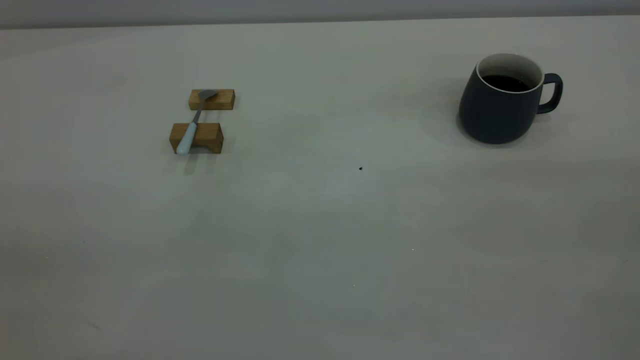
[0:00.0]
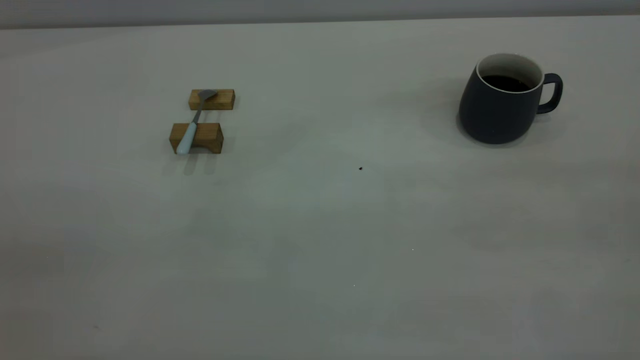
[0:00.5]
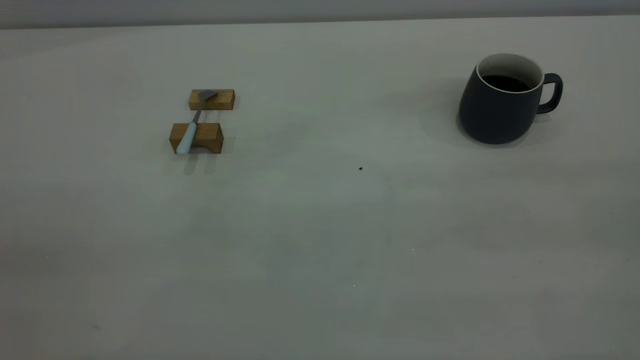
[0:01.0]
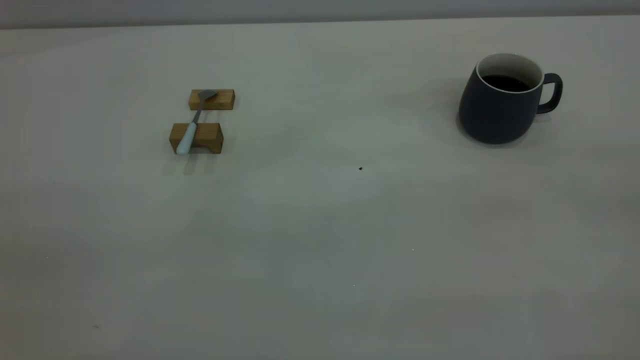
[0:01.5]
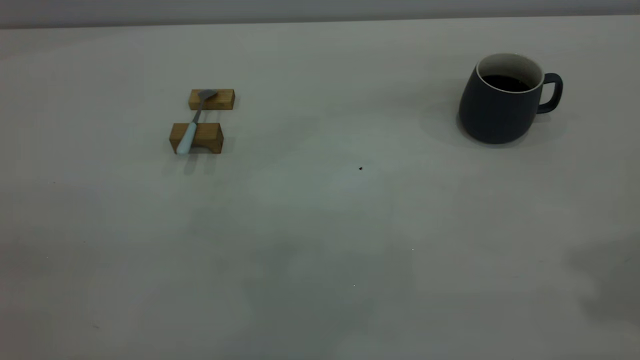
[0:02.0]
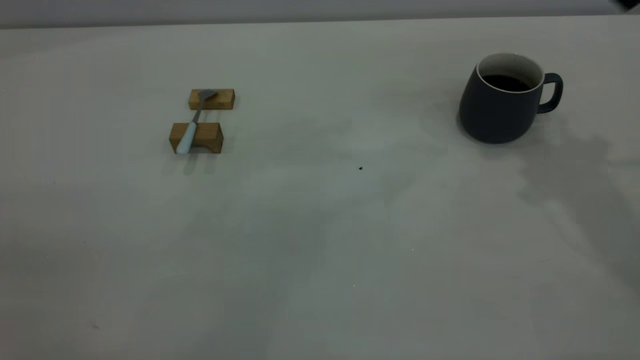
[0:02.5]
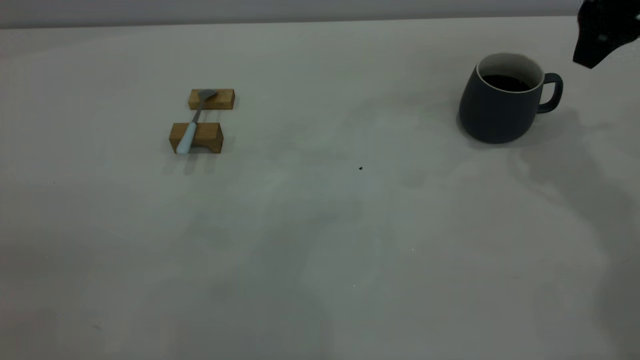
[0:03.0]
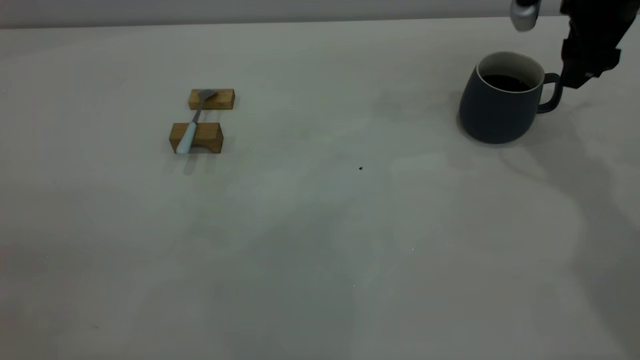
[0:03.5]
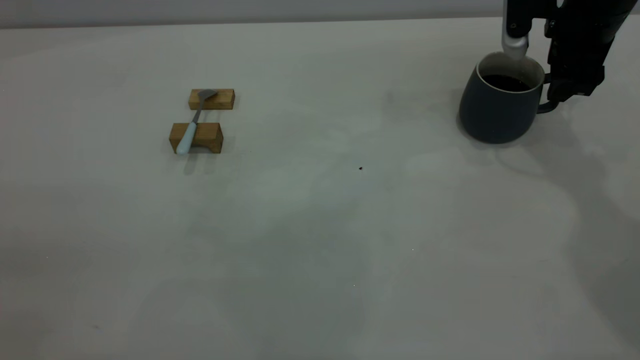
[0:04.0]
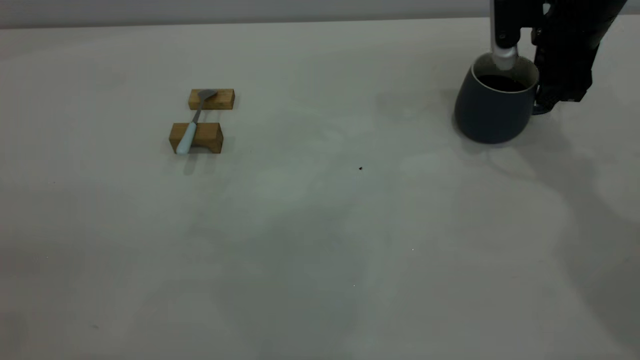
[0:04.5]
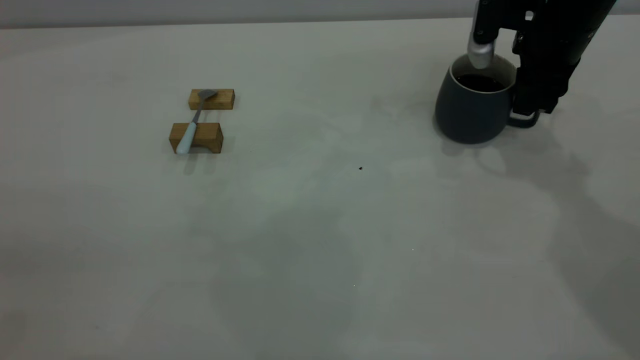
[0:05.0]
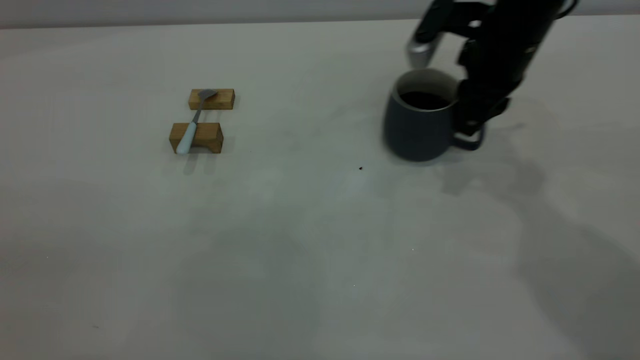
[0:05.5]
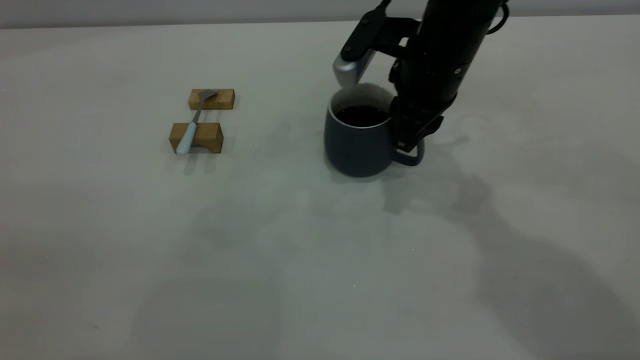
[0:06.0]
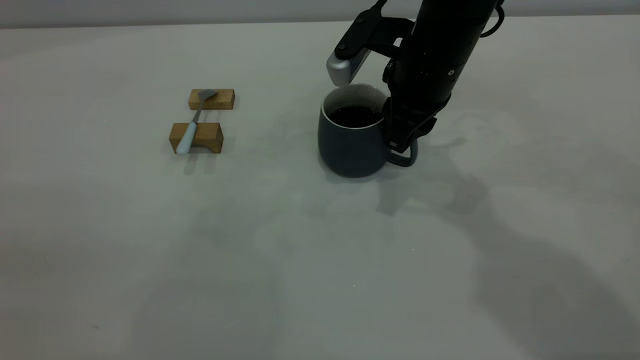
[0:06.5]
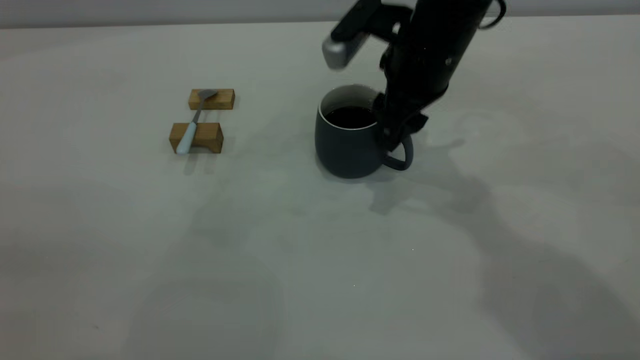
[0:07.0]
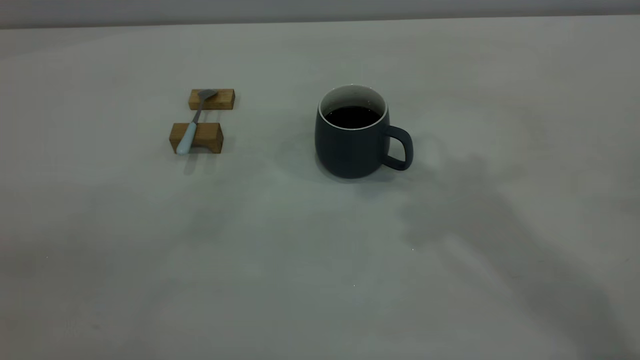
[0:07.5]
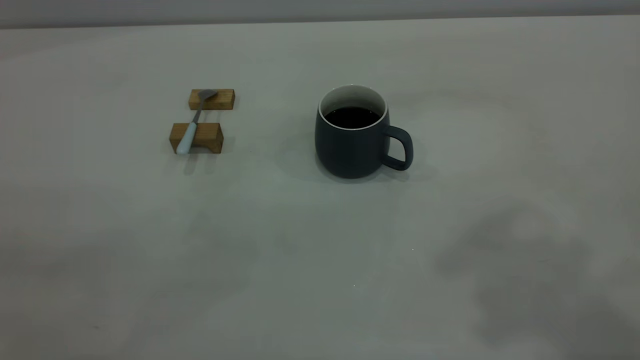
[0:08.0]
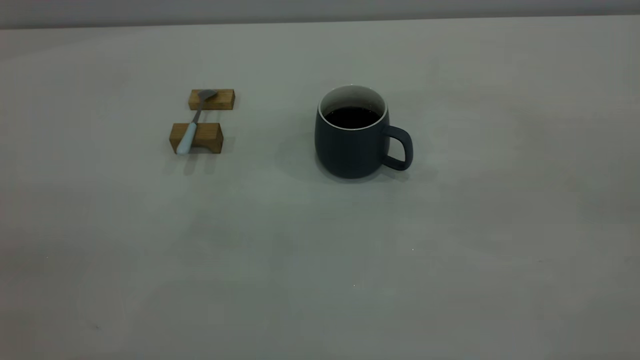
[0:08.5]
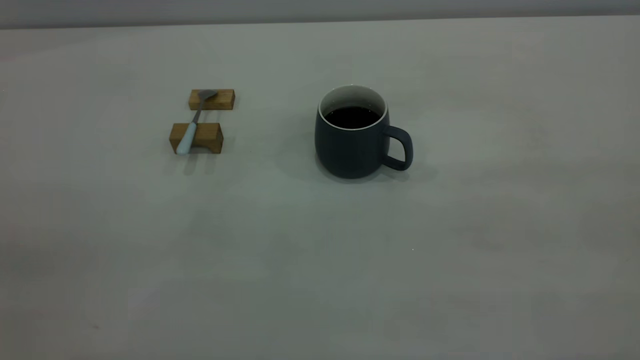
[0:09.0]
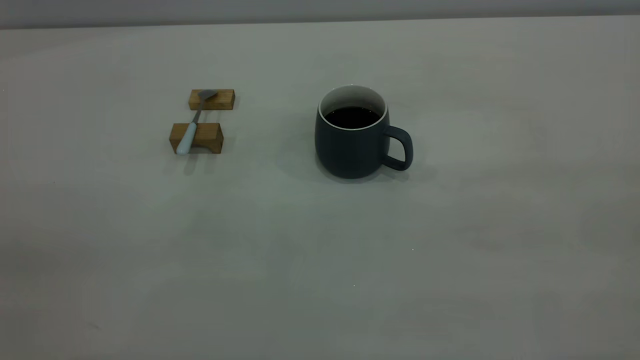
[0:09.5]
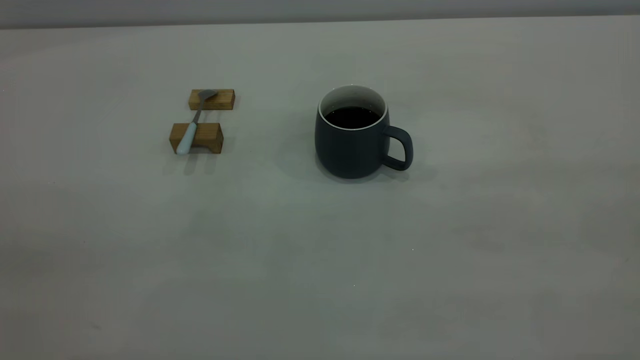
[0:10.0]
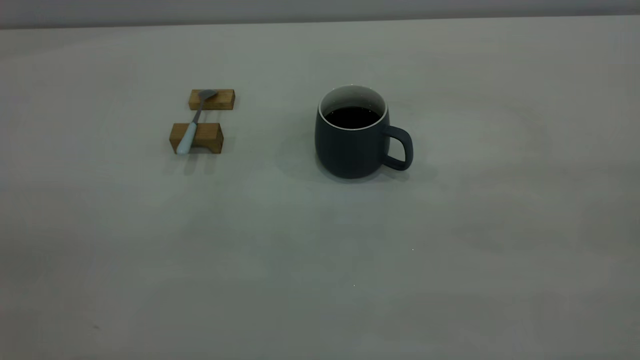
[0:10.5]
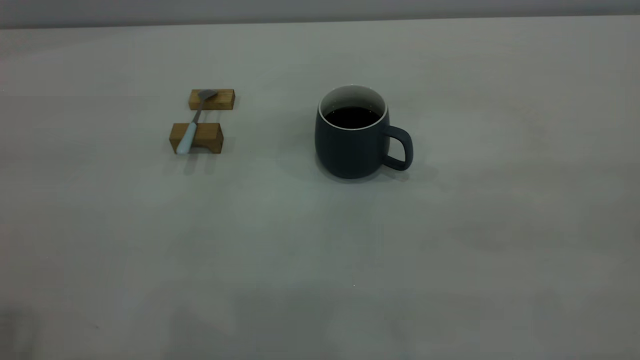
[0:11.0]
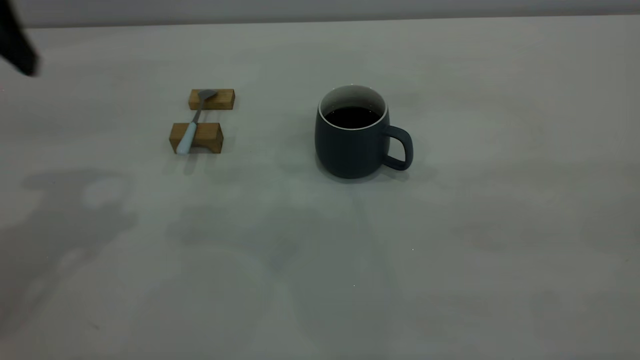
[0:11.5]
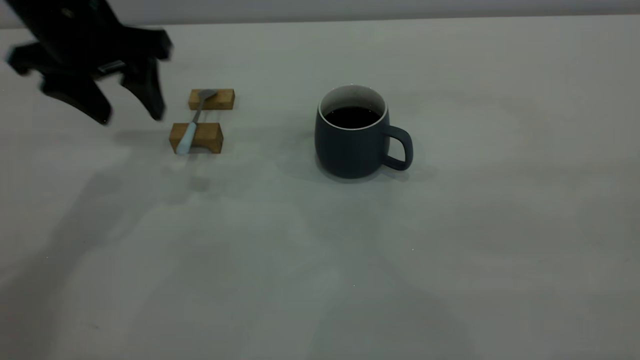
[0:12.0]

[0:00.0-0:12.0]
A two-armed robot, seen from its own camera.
Step, 0:00.0 to 0:07.0: Move the cup with coffee to the center of view.
0:02.0 to 0:04.0: The right gripper heads downward and forward, covering roughly 35 cm.
0:04.0 to 0:06.0: The right gripper heads to the left, covering approximately 15 cm, and closes its fingers.
0:06.0 to 0:08.0: The right gripper is displaced upward and backward by some 40 cm, and opens its fingers.
0:10.0 to 0:12.0: The left gripper moves forward and downward, approximately 40 cm, and opens.

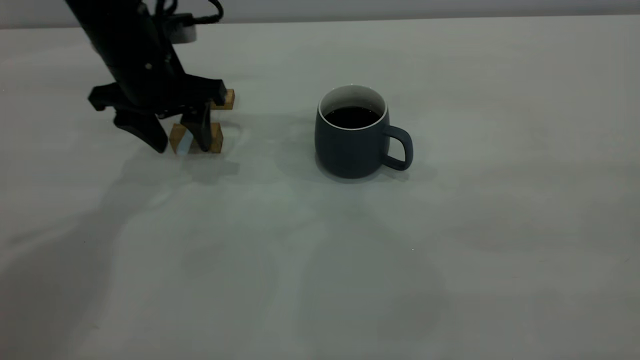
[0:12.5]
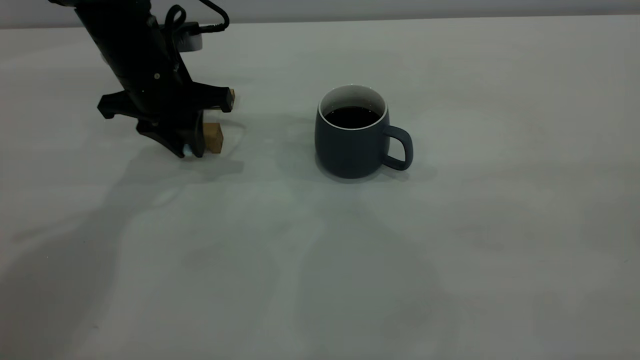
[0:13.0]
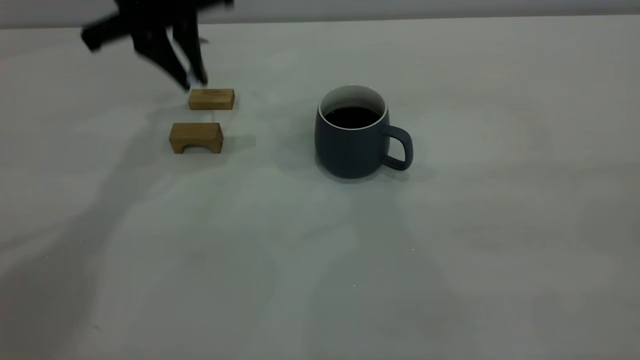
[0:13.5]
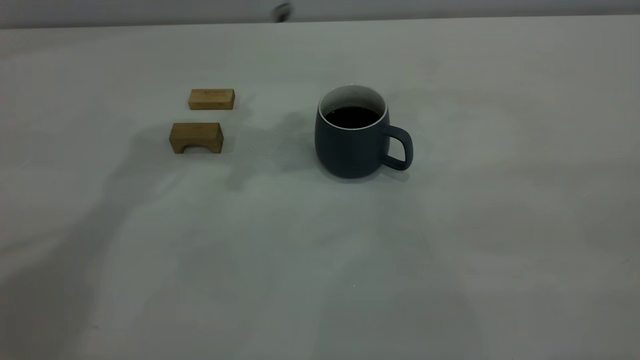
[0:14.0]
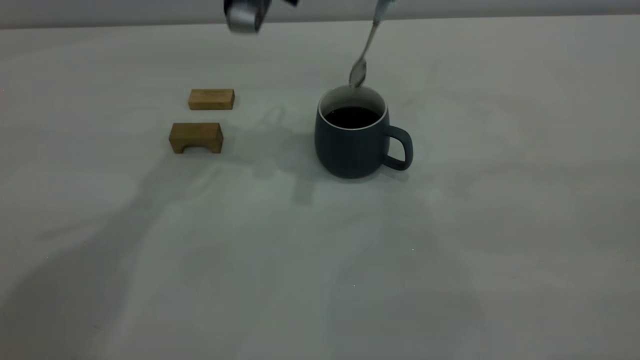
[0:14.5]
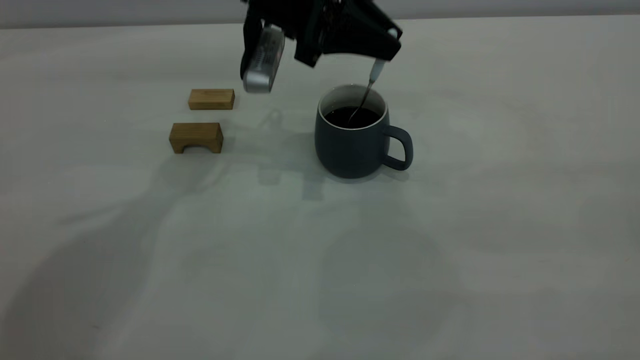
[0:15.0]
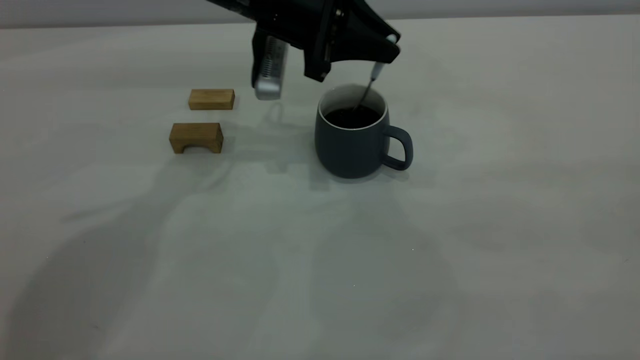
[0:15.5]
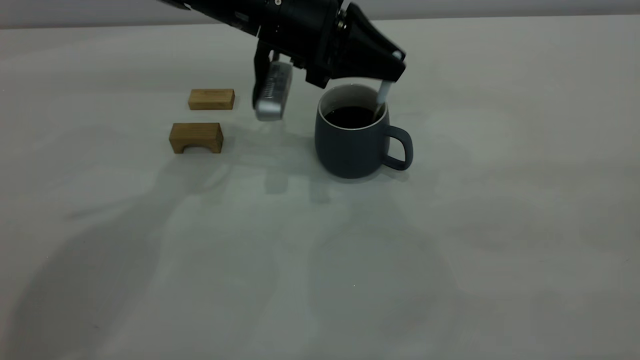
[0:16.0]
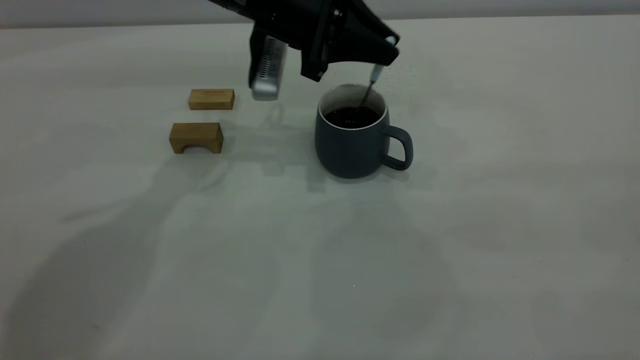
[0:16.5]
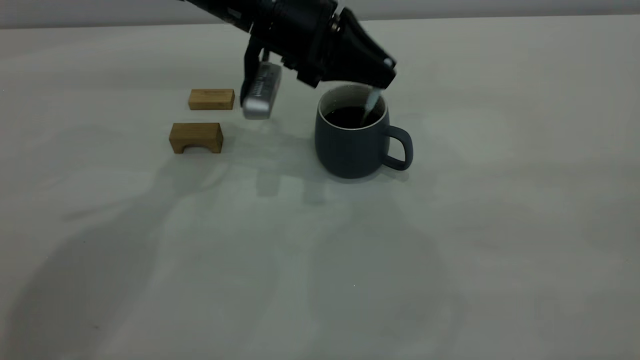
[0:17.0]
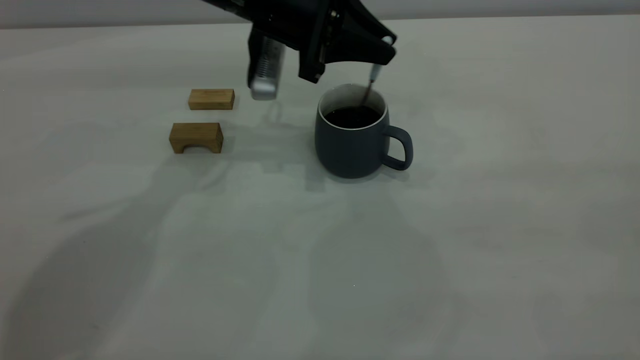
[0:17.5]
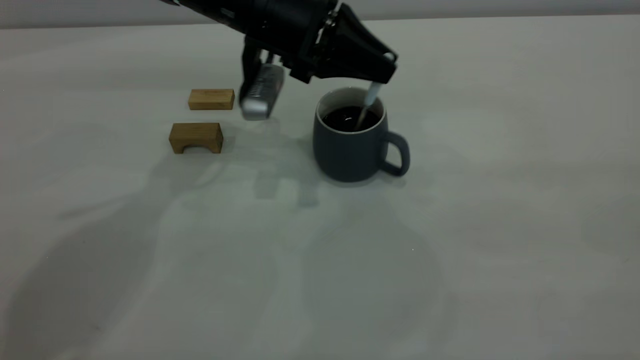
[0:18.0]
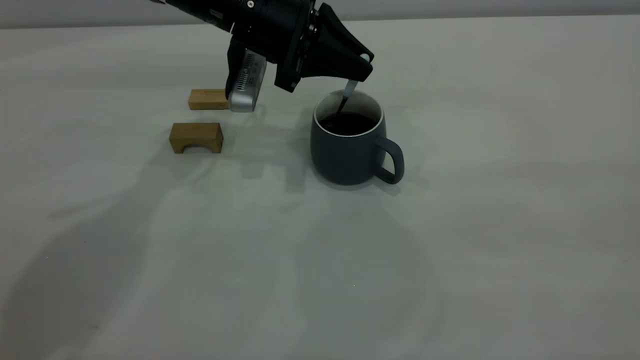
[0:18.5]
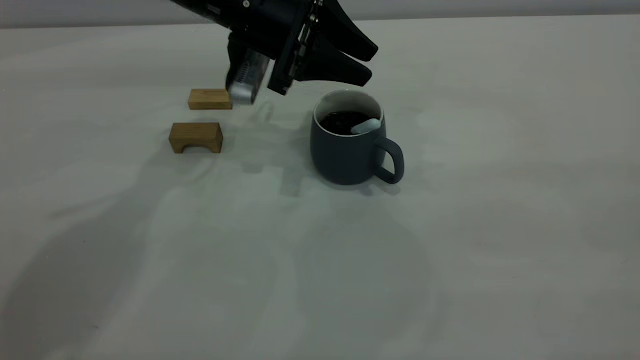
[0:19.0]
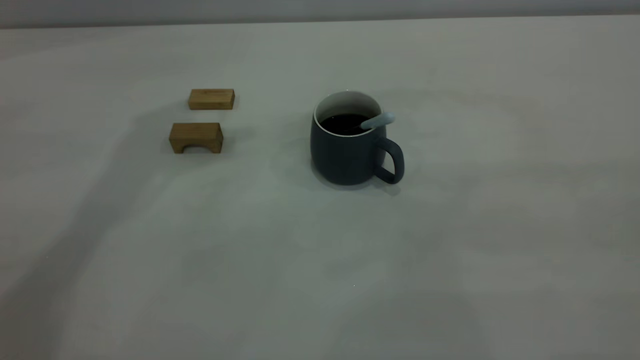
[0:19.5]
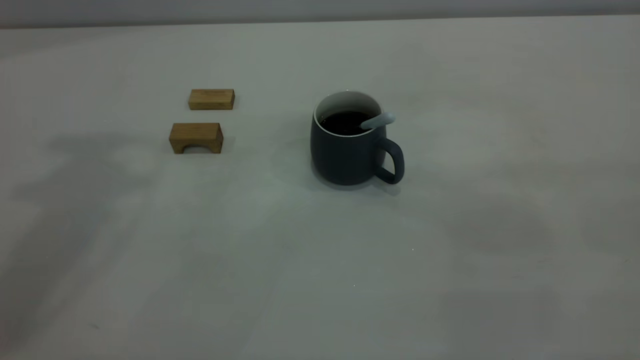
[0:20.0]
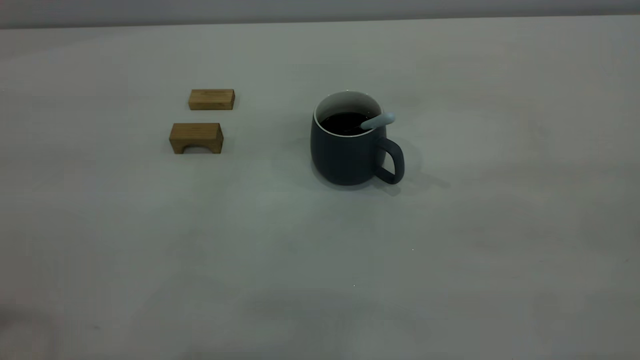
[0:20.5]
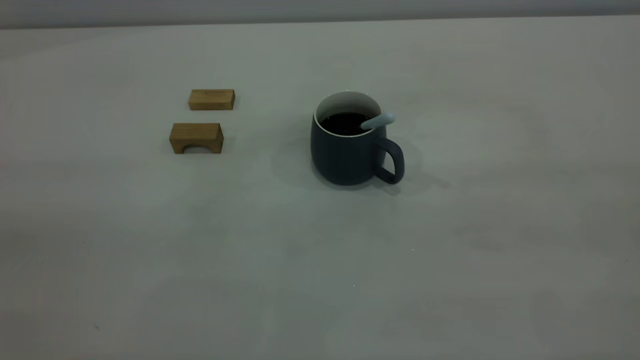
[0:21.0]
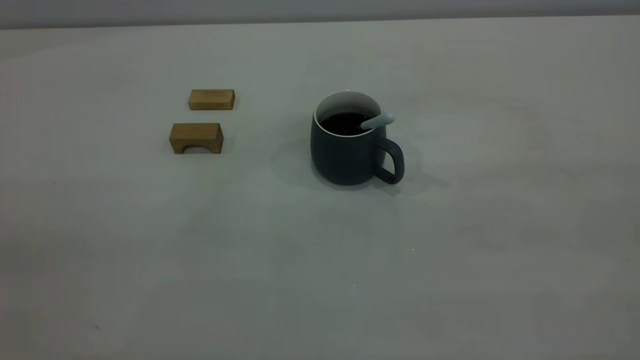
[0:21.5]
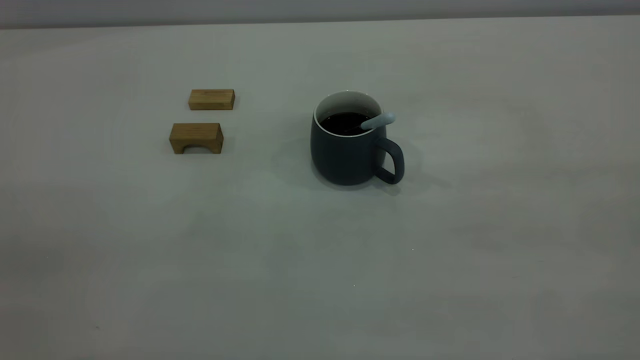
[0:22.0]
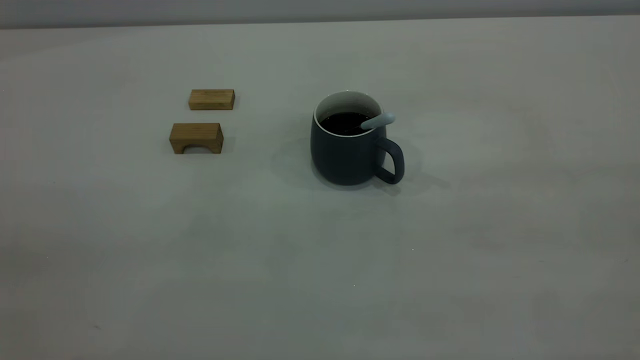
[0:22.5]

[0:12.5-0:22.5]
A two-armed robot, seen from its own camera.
Step, 0:14.0 to 0:19.0: Stir the coffee in the cup.
0:12.5 to 0:14.5: The left gripper shifts approximately 15 cm to the right and upward, and closes up.
0:14.5 to 0:16.5: The left gripper heads downward, covering some 10 cm.
0:16.5 to 0:18.5: The grippers move only a little.
0:18.5 to 0:20.5: The left gripper shifts approximately 40 cm backward, upward and to the left, and opens.
